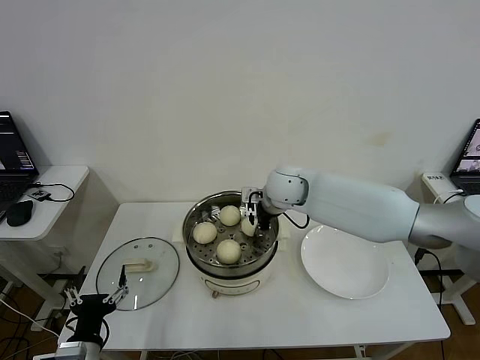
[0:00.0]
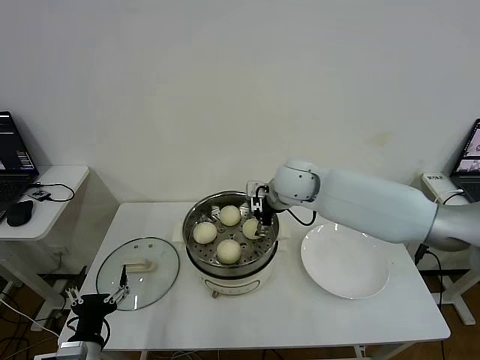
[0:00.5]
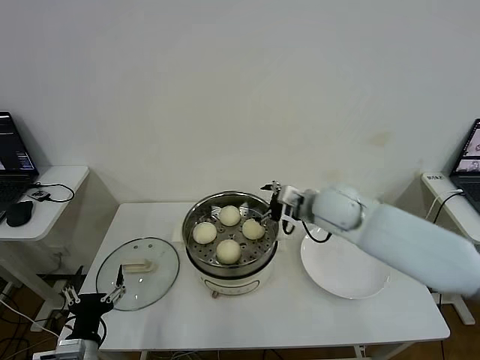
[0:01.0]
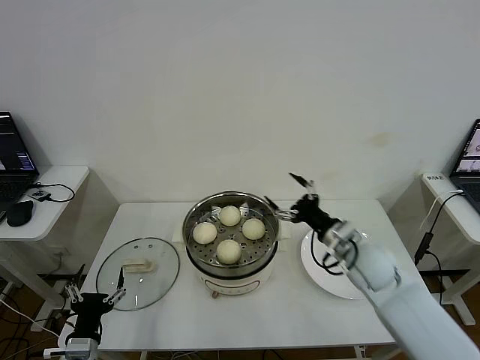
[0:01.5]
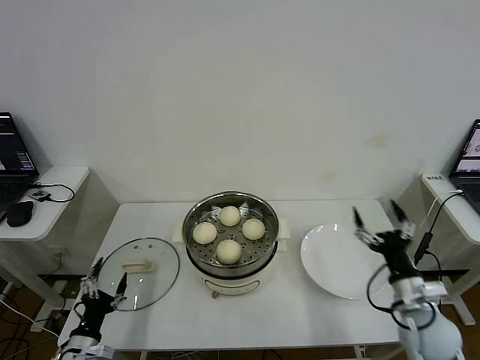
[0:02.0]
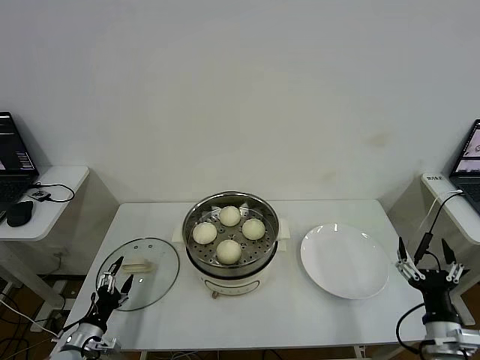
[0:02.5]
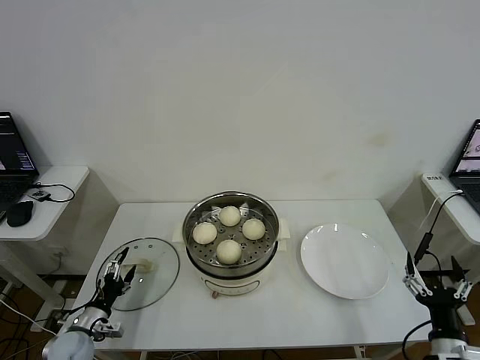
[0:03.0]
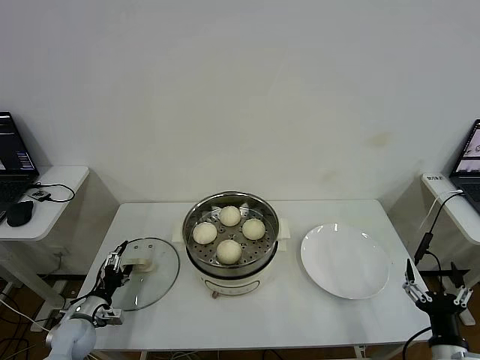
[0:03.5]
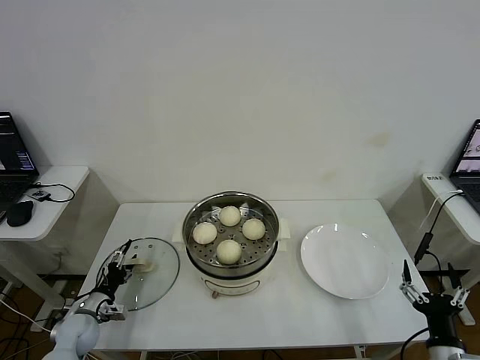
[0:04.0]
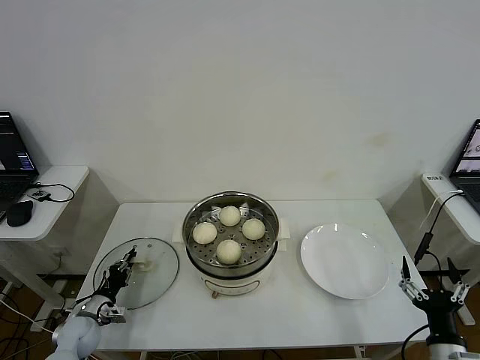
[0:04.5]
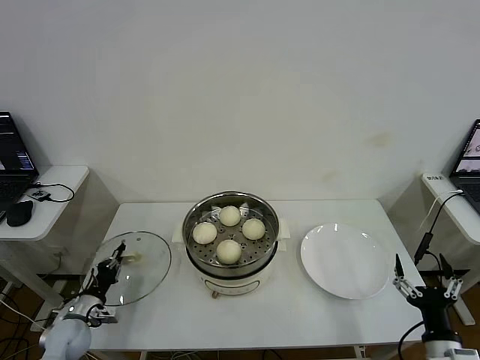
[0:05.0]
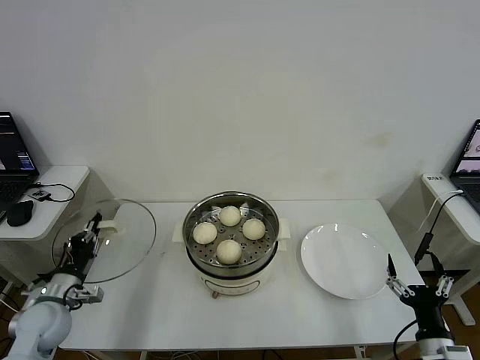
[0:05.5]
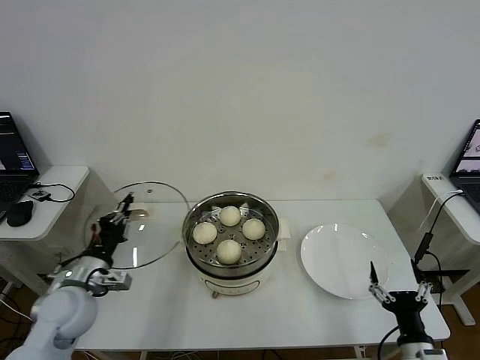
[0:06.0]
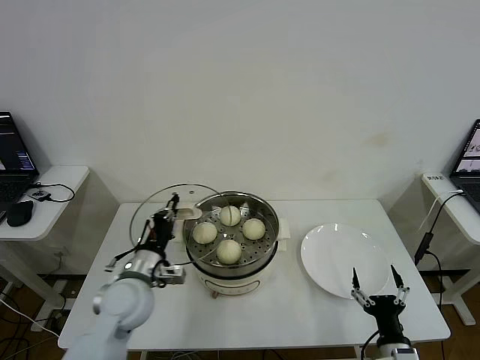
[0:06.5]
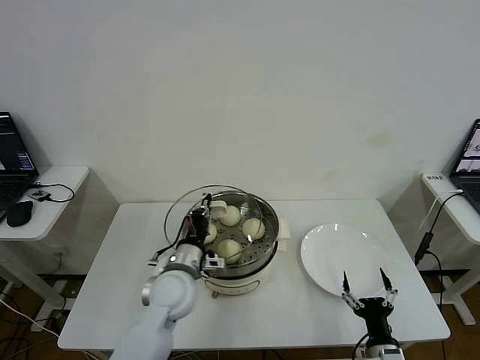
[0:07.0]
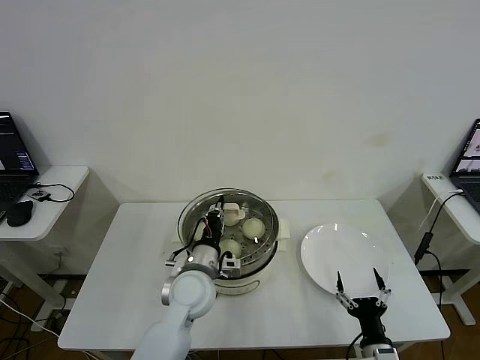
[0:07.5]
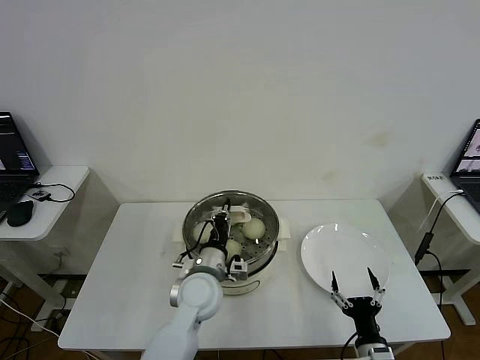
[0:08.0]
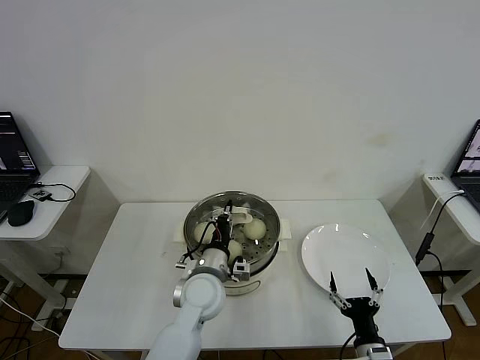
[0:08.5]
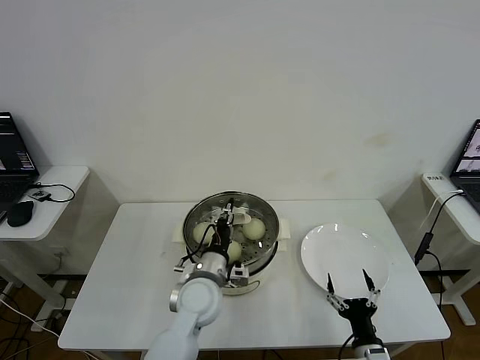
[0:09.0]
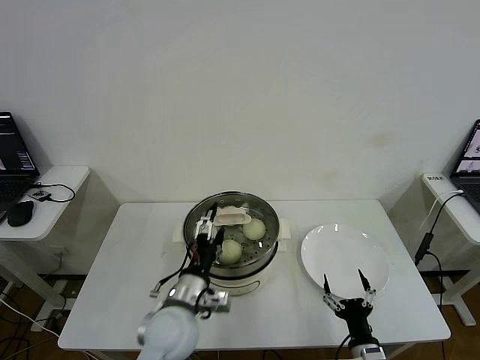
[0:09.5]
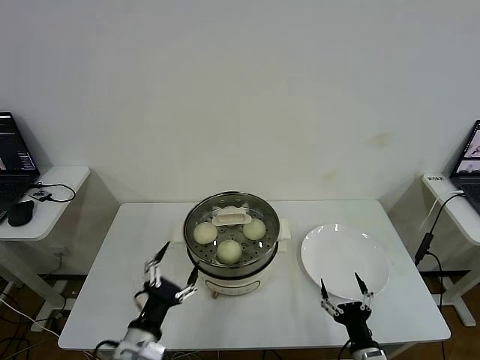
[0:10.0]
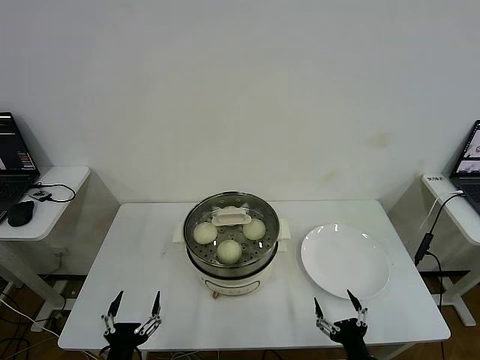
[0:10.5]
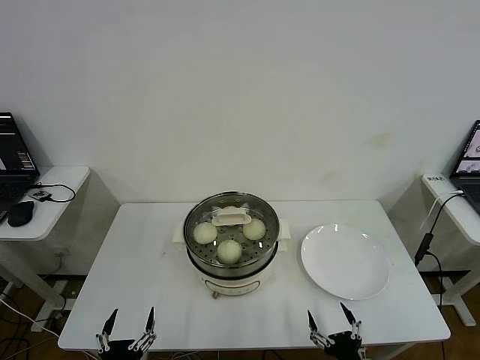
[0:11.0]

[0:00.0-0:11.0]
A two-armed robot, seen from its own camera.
Step, 1.0 to 4.5 s: Grasp the pot lid with left gripper.
Step, 5.0 to 9.0 s: Place the pot lid on the steamer with left gripper.
0.0 to 2.0 s: The left gripper moves downward and to the left, roughly 10 cm. Meanwhile the right gripper travels backward, to the right and downward by approximately 40 cm, and opens.
2.0 to 3.5 s: The left gripper goes about 10 cm forward, while the right gripper is displaced backward by roughly 10 cm.
3.5 to 5.5 s: The left gripper shifts approximately 10 cm upward, and closes its fingers.
5.5 to 7.5 s: The left gripper goes roughly 30 cm to the right, while the right gripper shifts about 10 cm to the left and downward.
7.5 to 9.0 s: The left gripper opens up.
9.0 to 11.0 s: The left gripper is displaced backward and to the left by some 30 cm, and opens up, while the right gripper shifts approximately 5 cm backward.

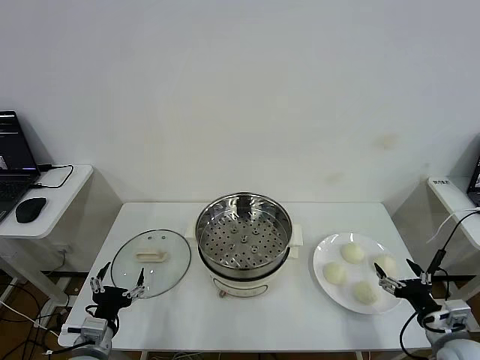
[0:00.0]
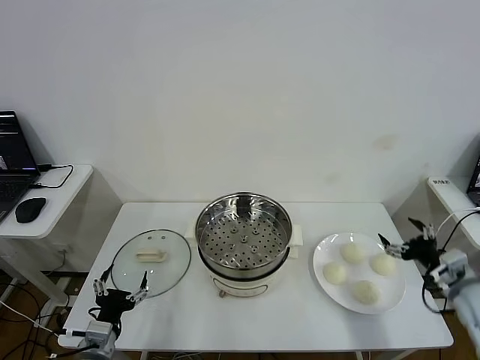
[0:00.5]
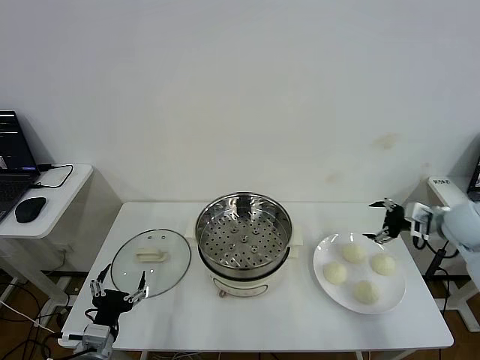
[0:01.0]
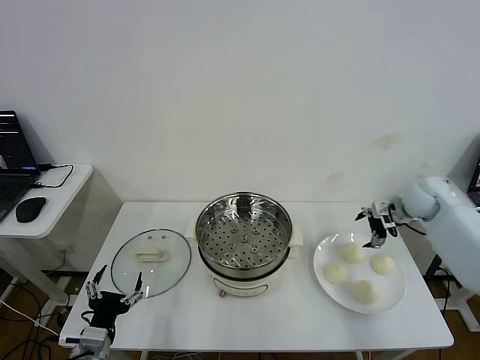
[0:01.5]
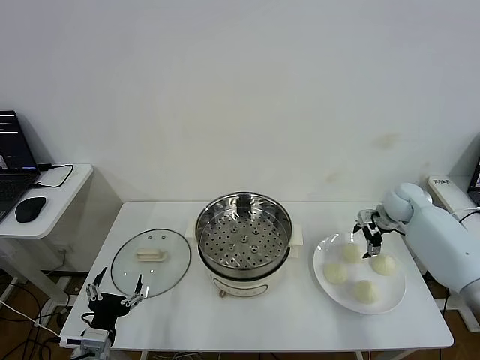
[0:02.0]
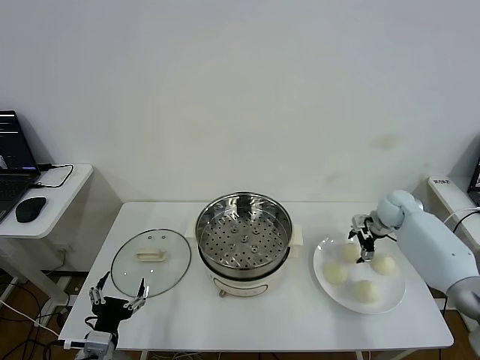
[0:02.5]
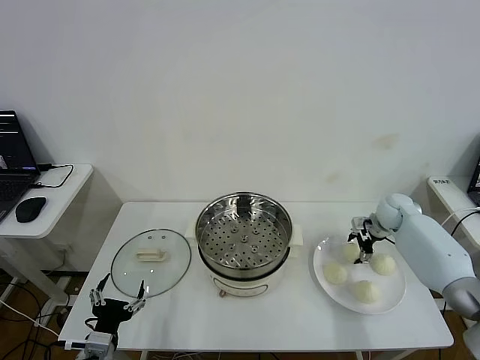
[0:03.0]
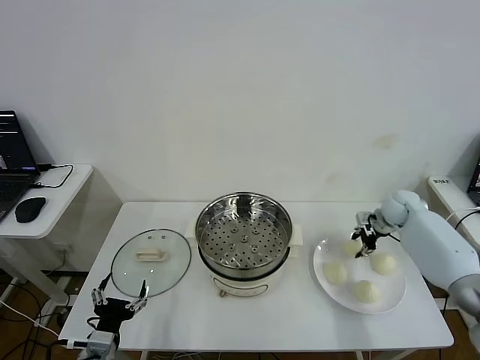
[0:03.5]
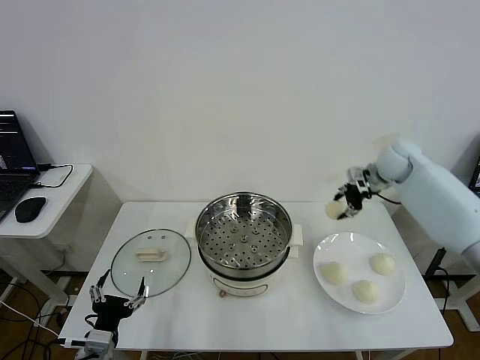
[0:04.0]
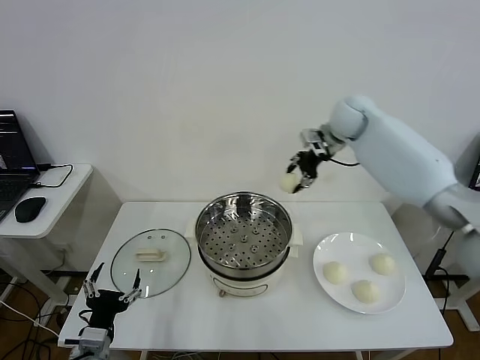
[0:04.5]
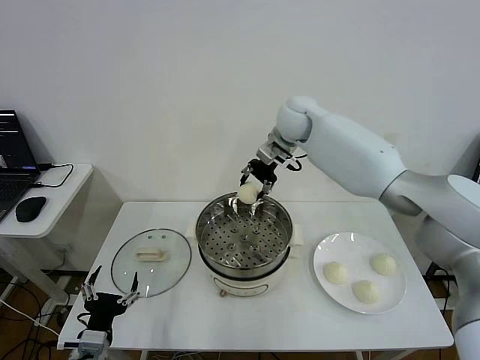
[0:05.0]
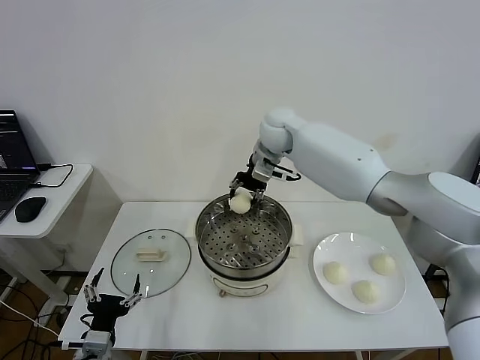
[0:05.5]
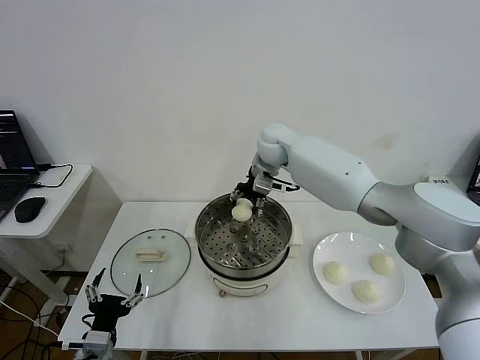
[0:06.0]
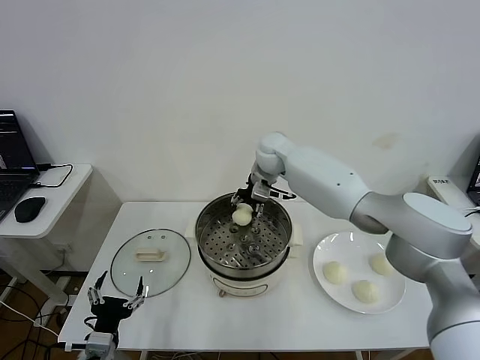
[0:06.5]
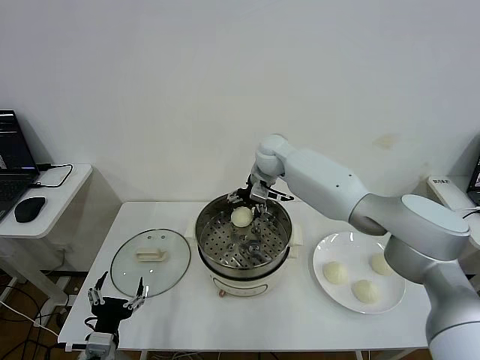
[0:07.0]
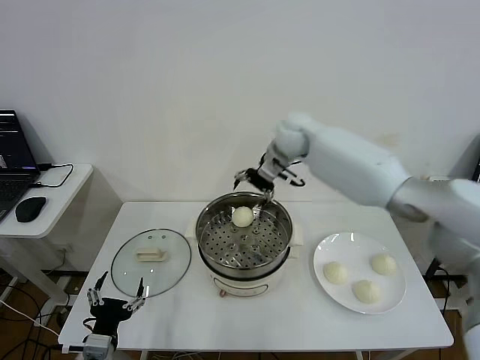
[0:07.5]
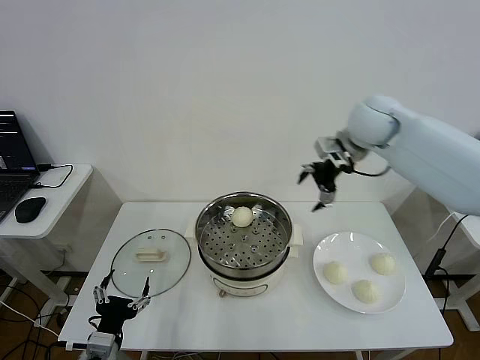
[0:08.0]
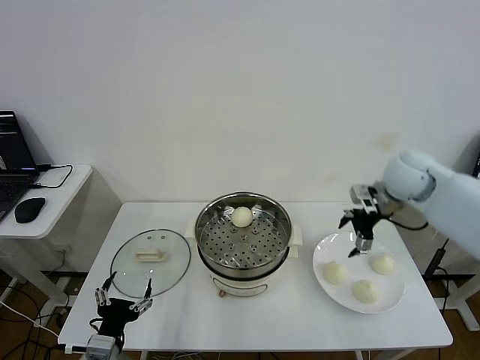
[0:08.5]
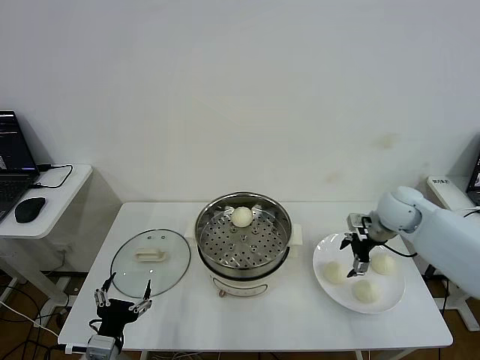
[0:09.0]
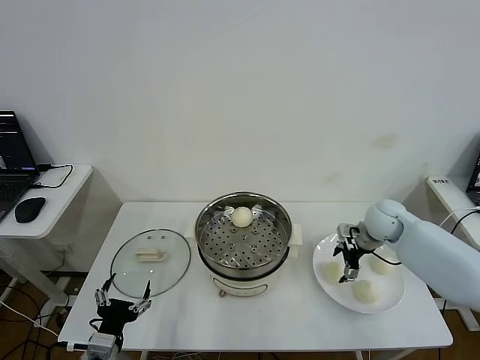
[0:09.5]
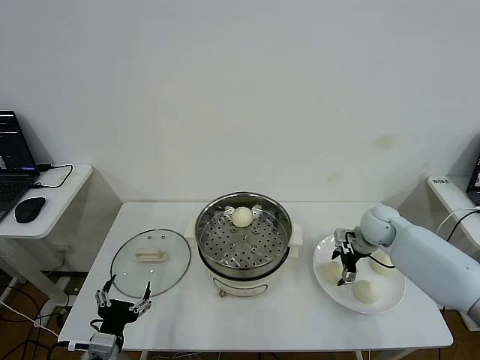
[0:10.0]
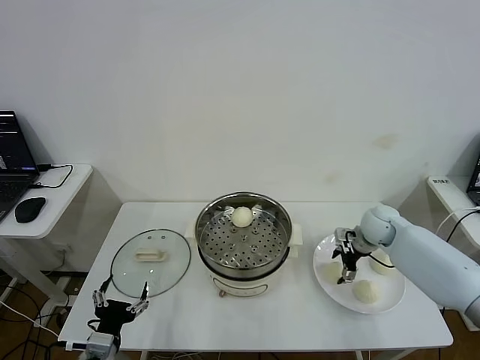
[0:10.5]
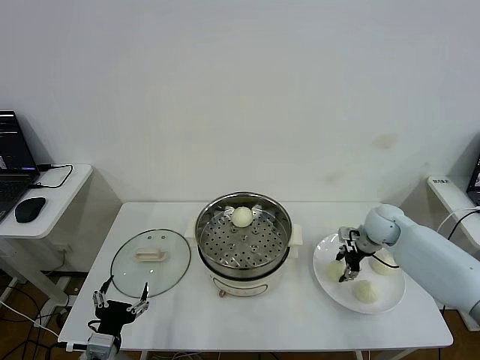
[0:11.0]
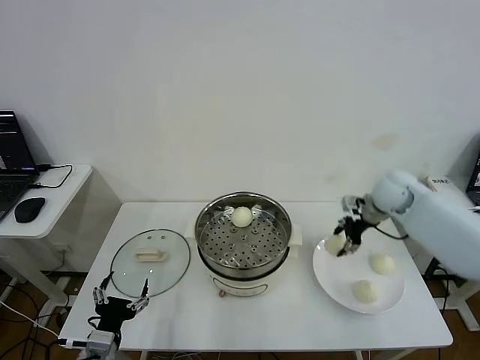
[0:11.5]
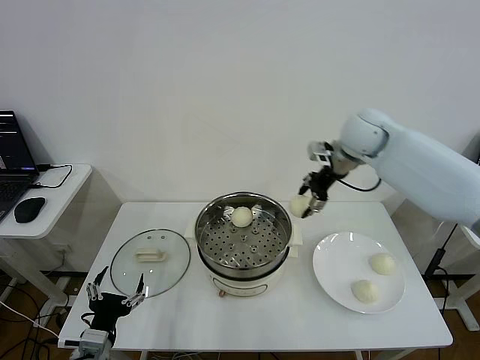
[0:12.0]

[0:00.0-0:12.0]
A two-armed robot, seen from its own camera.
Step, 0.0 to 3.0 s: Grasp the baozi in the plate with right gripper.
Step, 3.5 to 6.5 s: Place the baozi on the steamer with right gripper.
Step, 7.0 to 10.5 s: Grasp the baozi in the plate with right gripper.
2.0 to 4.0 s: The right gripper travels upward and to the left by approximately 20 cm, and closes its fingers.
4.0 to 6.0 s: The right gripper heads to the left, covering about 25 cm.
6.0 to 8.0 s: The right gripper travels to the right, backward and upward by some 25 cm, and opens up.
8.0 to 10.0 s: The right gripper goes about 25 cm downward.
10.0 to 12.0 s: The right gripper heads upward and to the left, covering roughly 30 cm, and closes its fingers.

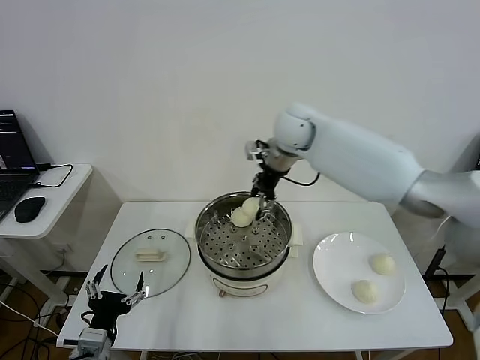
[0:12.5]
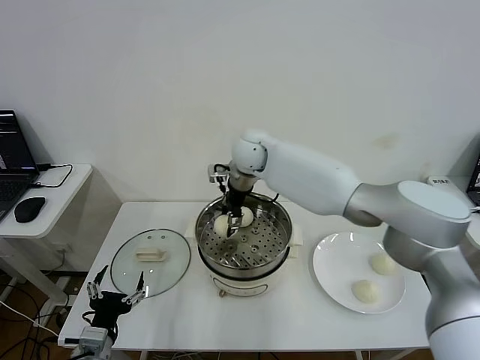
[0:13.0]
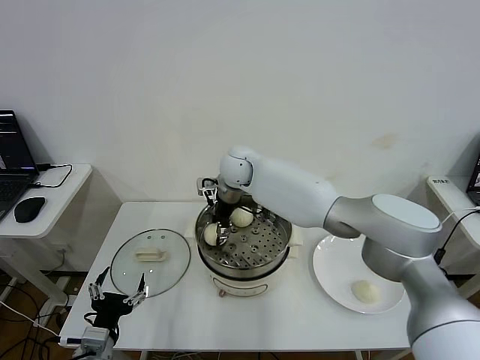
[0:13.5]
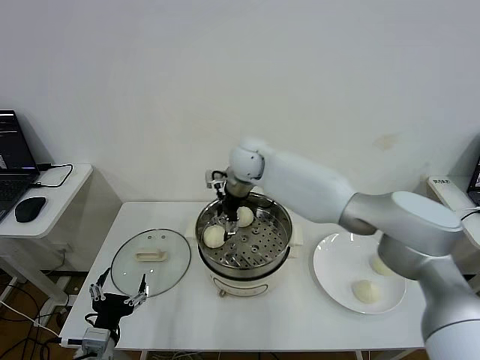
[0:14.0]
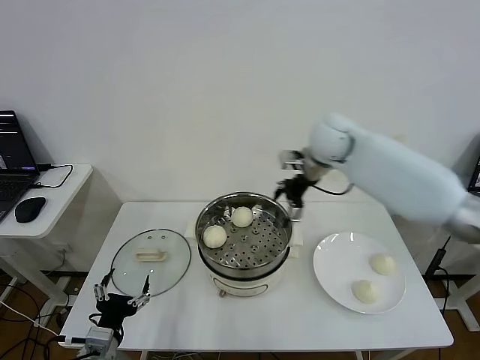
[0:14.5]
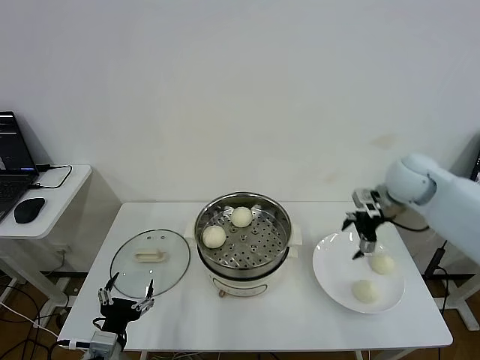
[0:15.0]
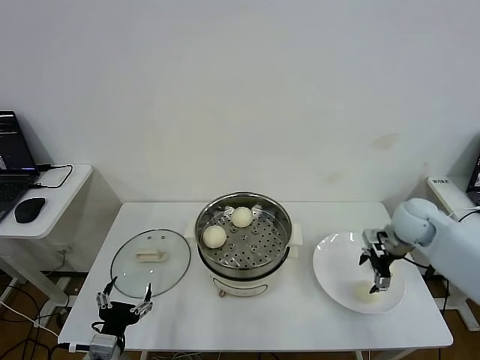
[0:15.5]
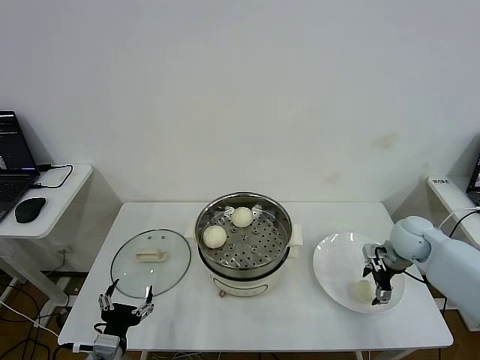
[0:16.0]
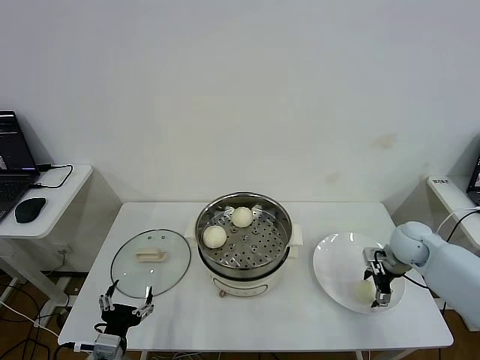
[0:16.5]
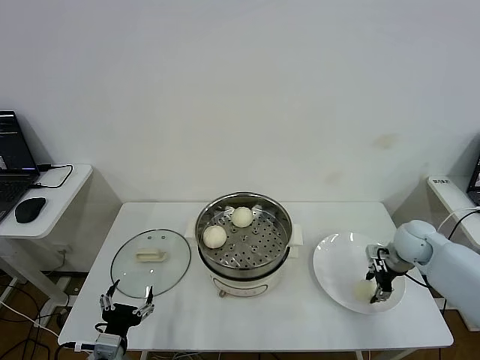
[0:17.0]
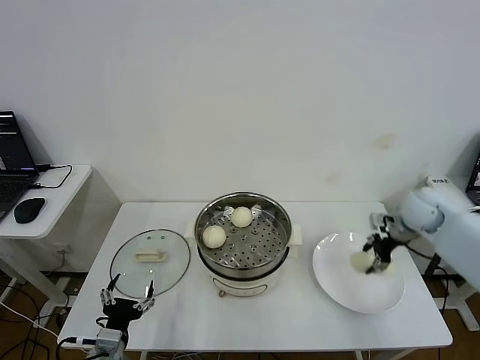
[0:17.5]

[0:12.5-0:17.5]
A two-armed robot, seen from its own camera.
Step, 14.0 to 16.5 s: Grasp the baozi in the plate with right gripper.
12.5 to 15.0 s: The right gripper heads to the right, covering some 30 cm, and opens up.
15.0 to 17.5 s: The right gripper goes downward and returns, roughly 15 cm each way, and closes its fingers.
